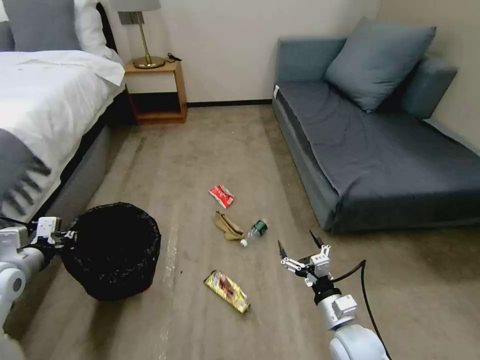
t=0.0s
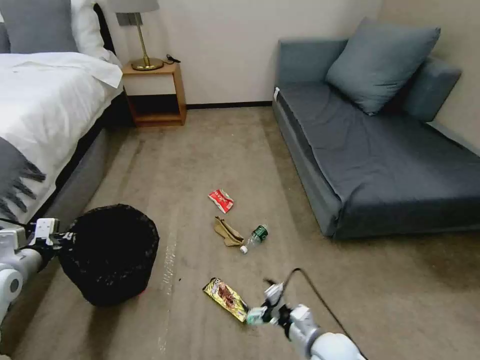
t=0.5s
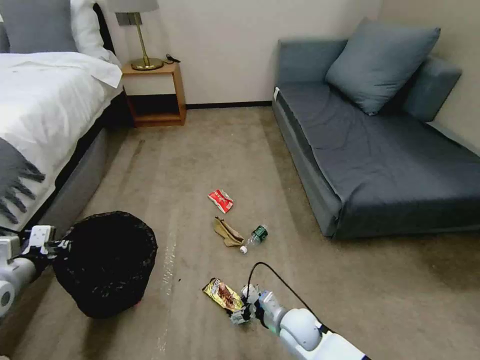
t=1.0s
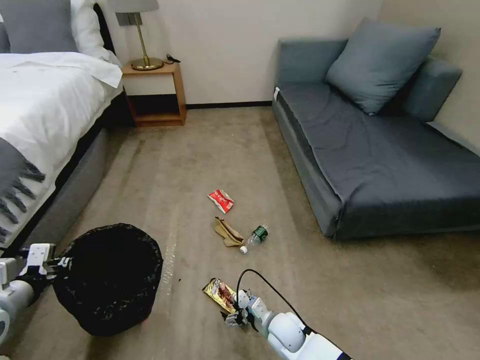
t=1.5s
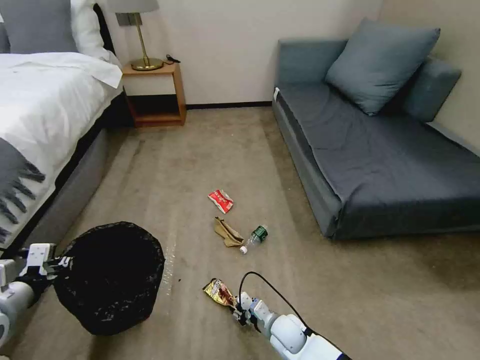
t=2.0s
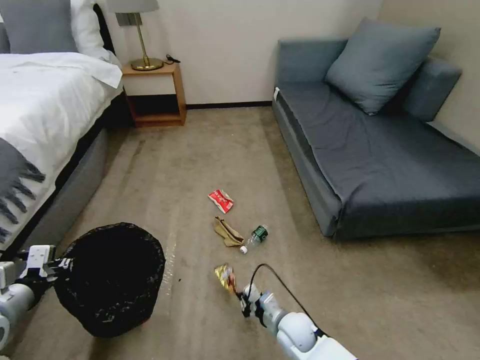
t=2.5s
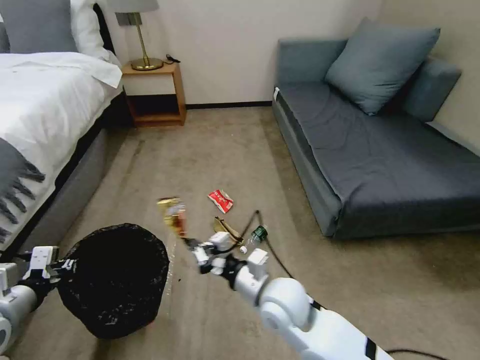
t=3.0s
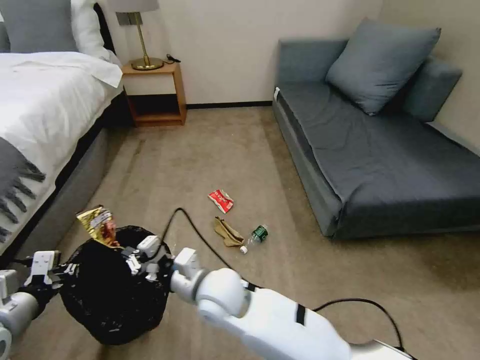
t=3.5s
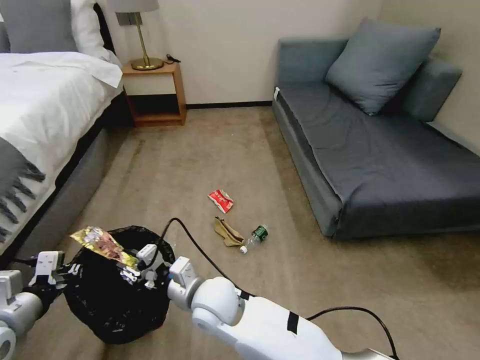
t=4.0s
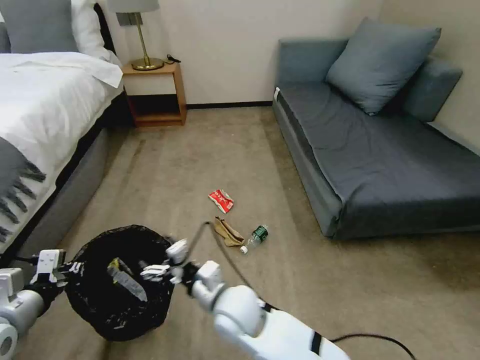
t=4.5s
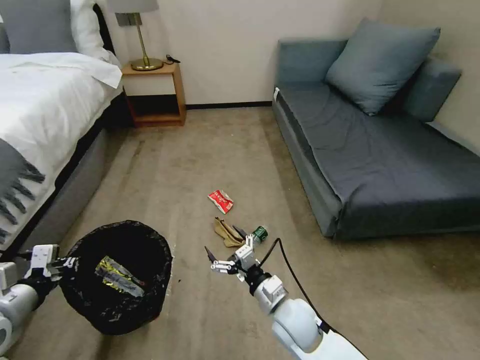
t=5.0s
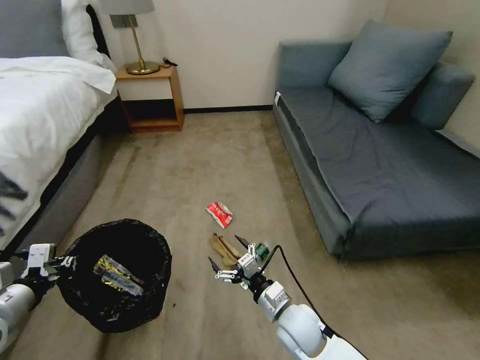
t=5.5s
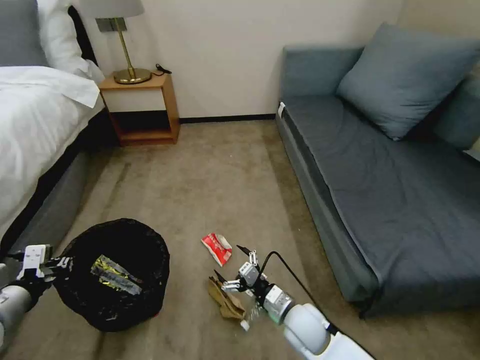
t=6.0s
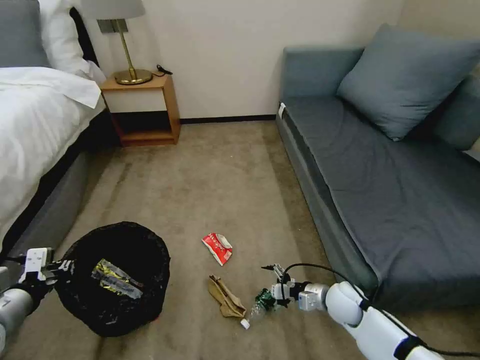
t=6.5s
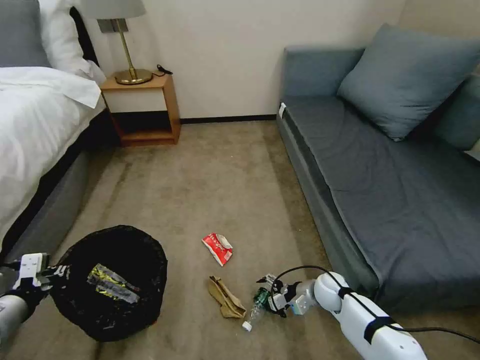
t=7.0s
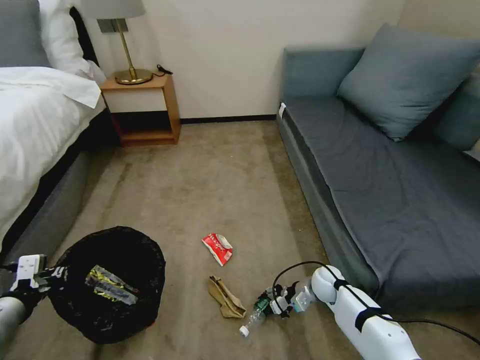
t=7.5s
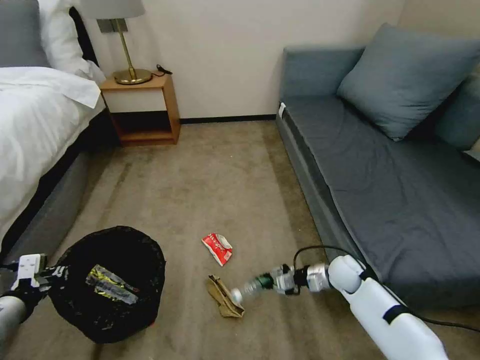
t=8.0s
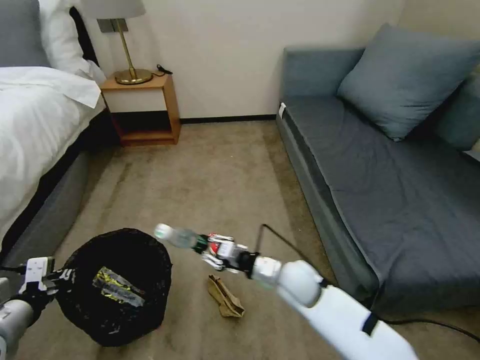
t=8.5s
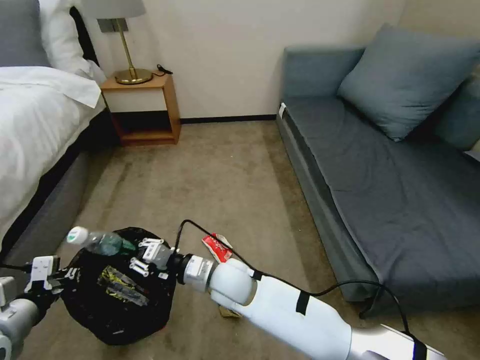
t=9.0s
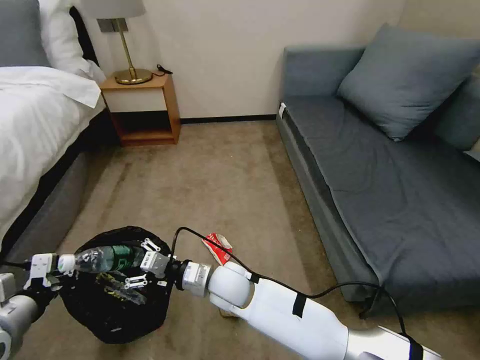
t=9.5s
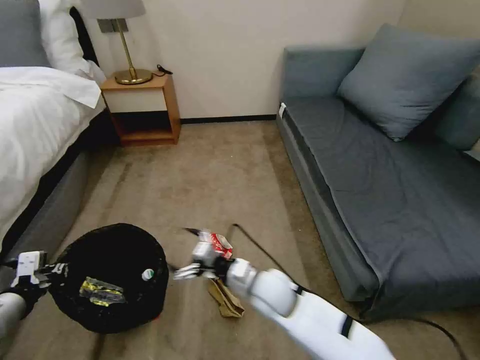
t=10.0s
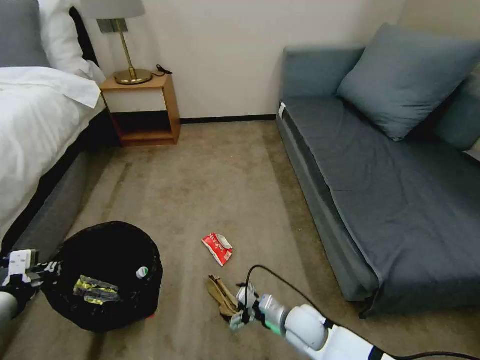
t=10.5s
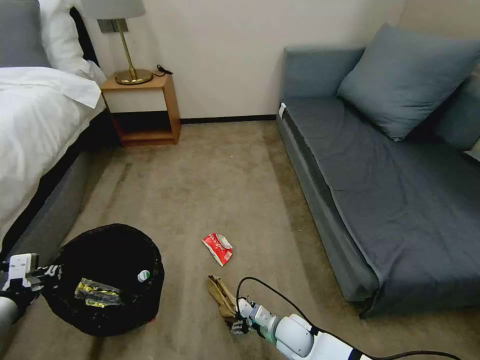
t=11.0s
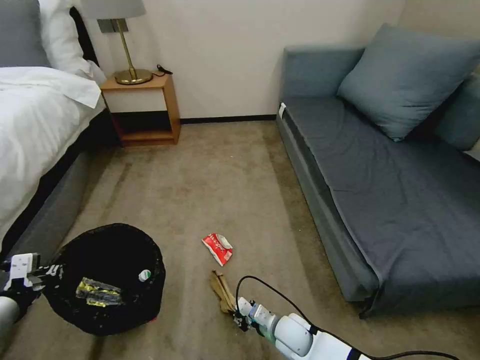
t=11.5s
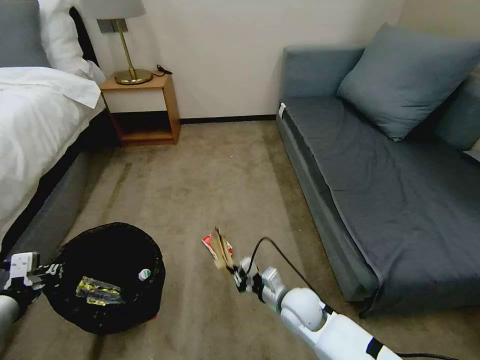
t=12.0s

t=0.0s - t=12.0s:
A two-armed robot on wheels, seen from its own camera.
Task of the whole recording: Pick up the trash bin, then pick up the garbage on the floor and place it into the trash bin.
t=0.0s - t=2.0s: The left gripper is displaced backward by some 10 cm, while the right gripper moves downward and to the left, roughly 20 cm, and closes up.
t=2.0s - t=4.0s: The right gripper moves upward and to the left, approximately 30 cm.
t=4.0s - t=6.0s: The right gripper heads to the right and downward, covering about 25 cm, and opens up.
t=6.0s - t=8.0s: The right gripper goes some 20 cm to the right and forward, and closes up.
t=8.0s - t=10.0s: The right gripper is displaced to the left by about 25 cm, and opens its fingers.
t=10.0s - t=12.0s: The right gripper goes approximately 10 cm to the right and downward, and closes up.

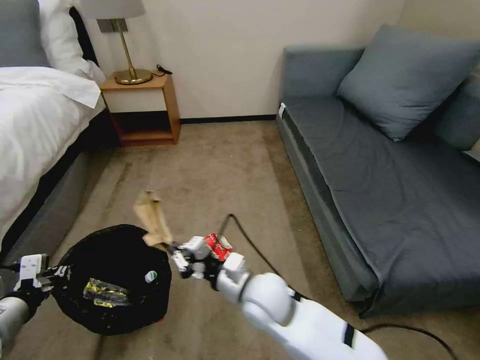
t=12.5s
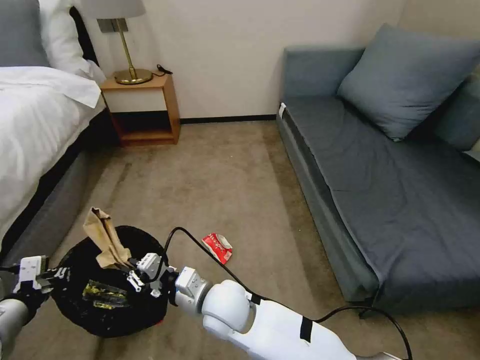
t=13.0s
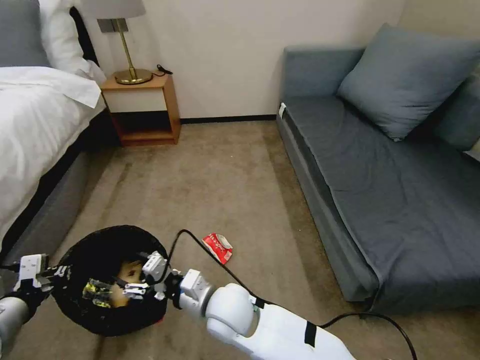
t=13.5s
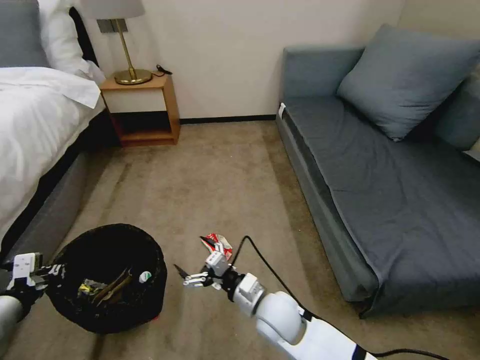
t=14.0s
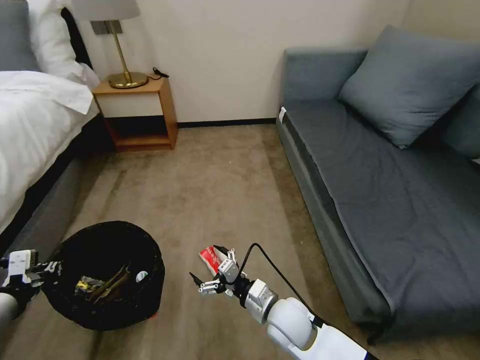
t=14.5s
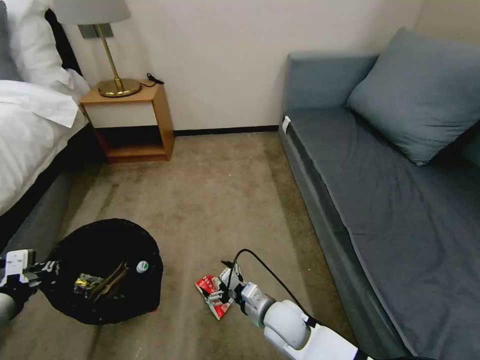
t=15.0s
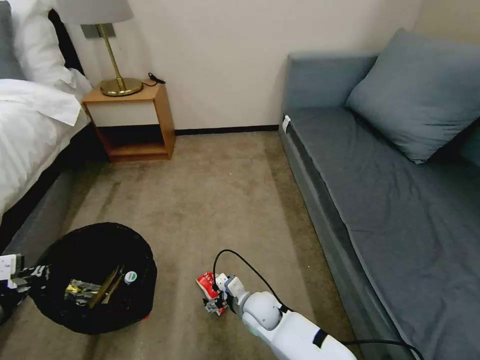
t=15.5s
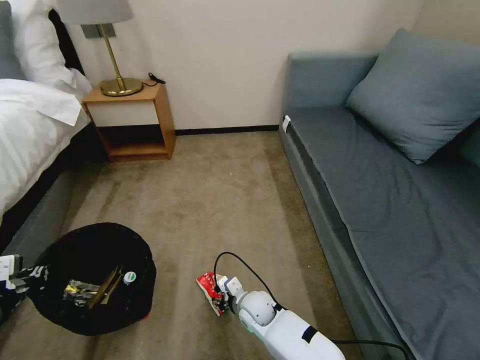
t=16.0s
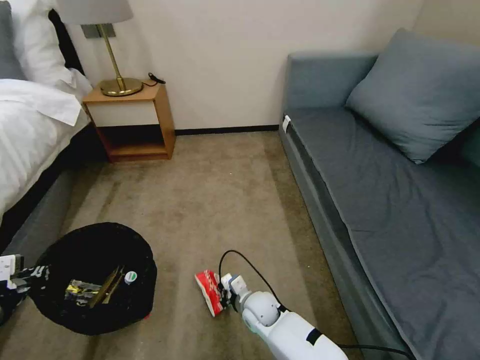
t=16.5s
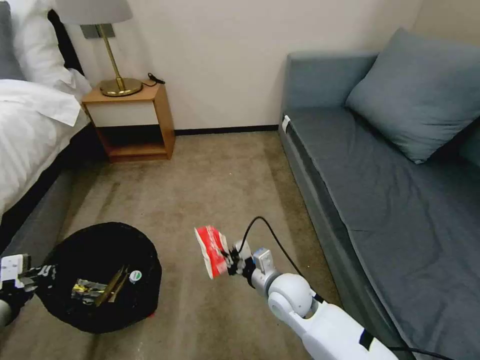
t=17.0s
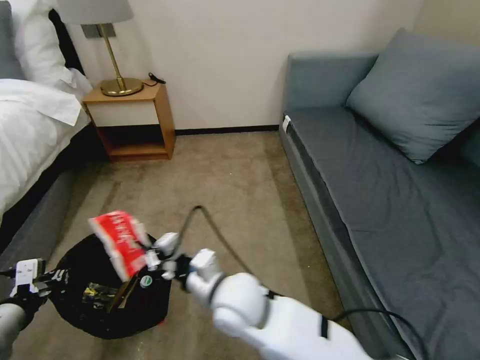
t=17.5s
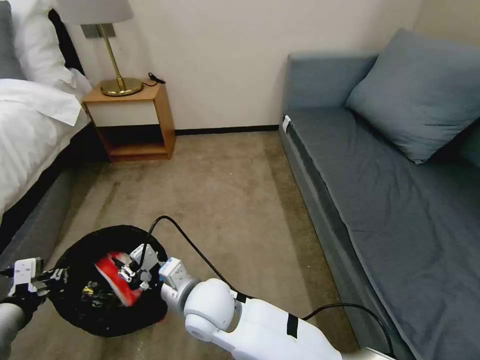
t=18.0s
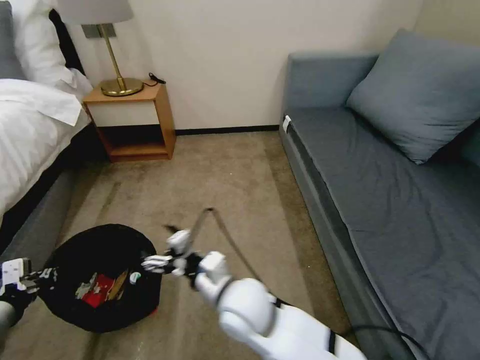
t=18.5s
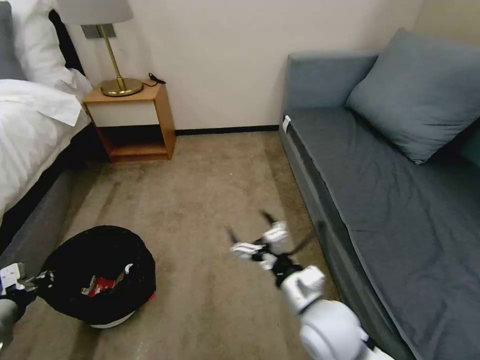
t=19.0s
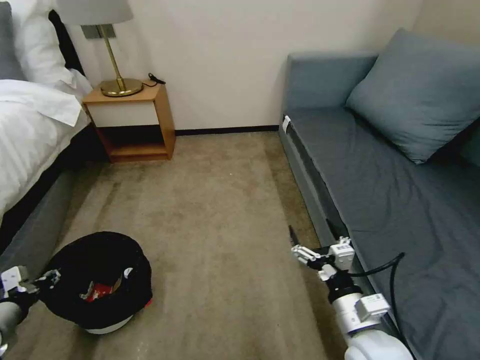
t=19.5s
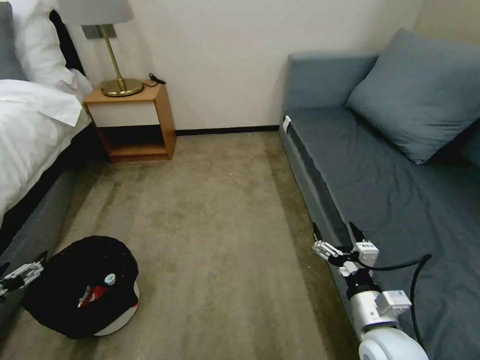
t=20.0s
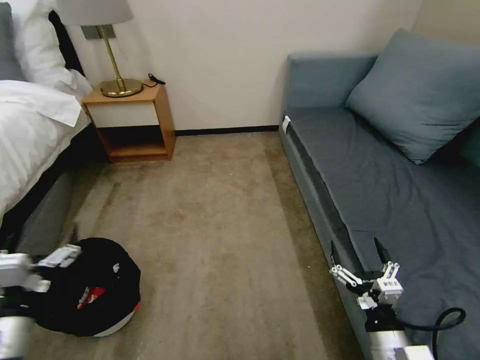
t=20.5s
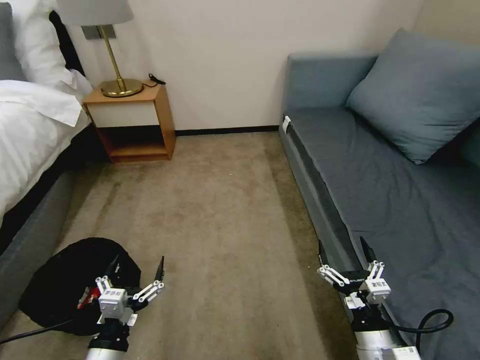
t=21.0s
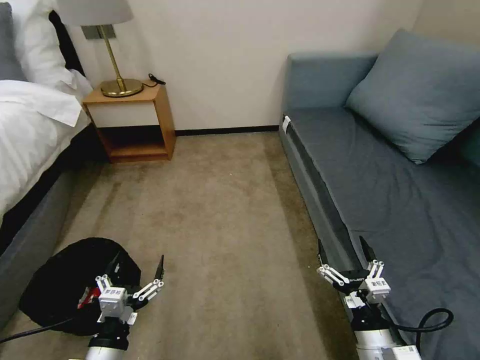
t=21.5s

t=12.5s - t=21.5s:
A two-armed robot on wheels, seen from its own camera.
Task of the whole recording: Pick up the trash bin, then pick up the garbage on the floor and place it into the trash bin.
t=12.5s - t=14.5s: The right gripper goes some 10 cm downward and to the right, and opens.
t=14.5s - t=17.0s: The right gripper reaches roughly 10 cm downward, then returns, and closes.
t=17.0s - t=19.5s: The right gripper shifts some 20 cm backward, to the right and upward, and opens. The left gripper moves downward and to the left, some 10 cm.
t=19.5s - t=21.5s: The right gripper shifts approximately 5 cm downward. The left gripper moves to the right, about 25 cm, and opens up.

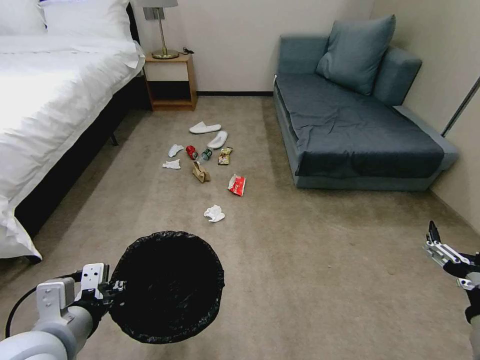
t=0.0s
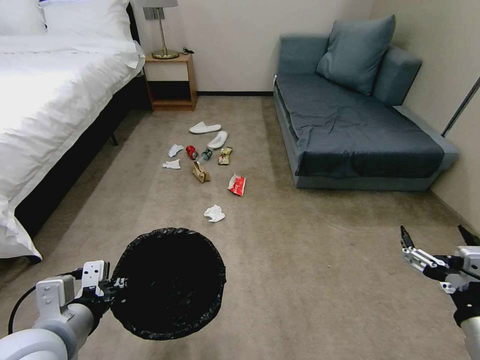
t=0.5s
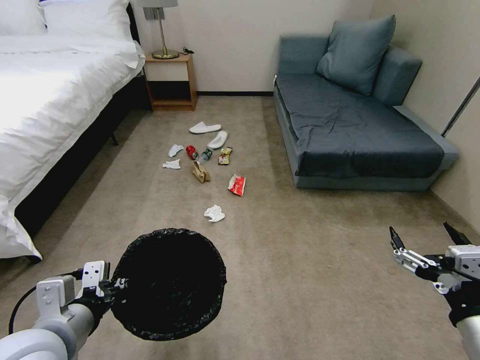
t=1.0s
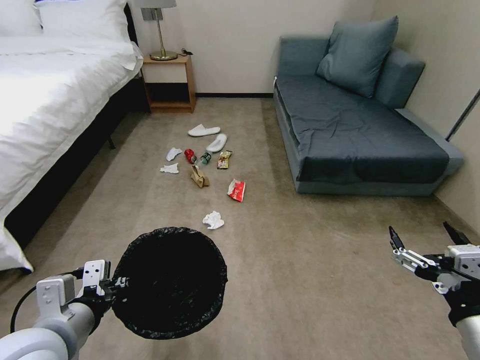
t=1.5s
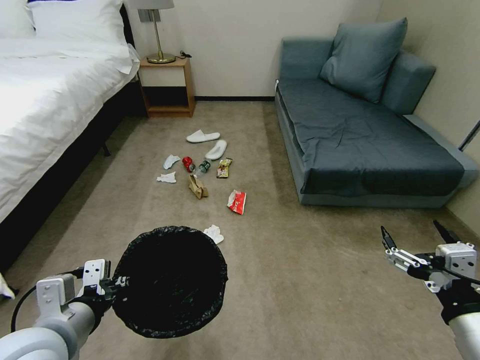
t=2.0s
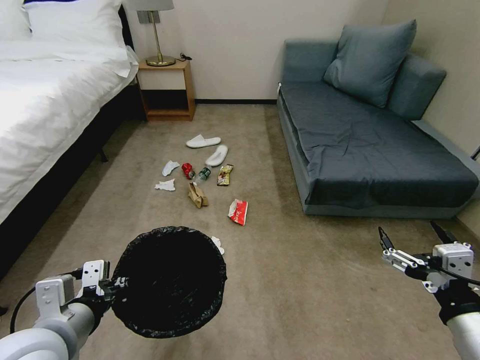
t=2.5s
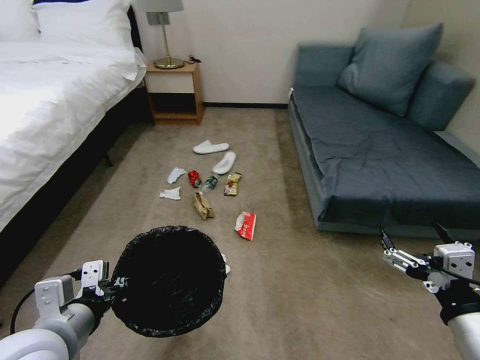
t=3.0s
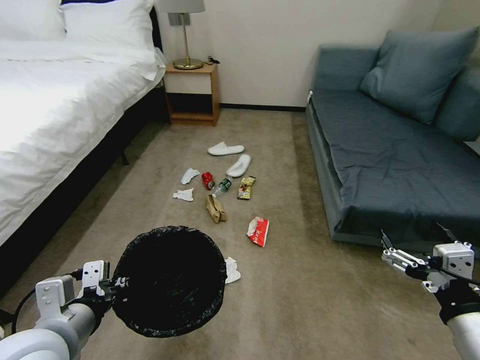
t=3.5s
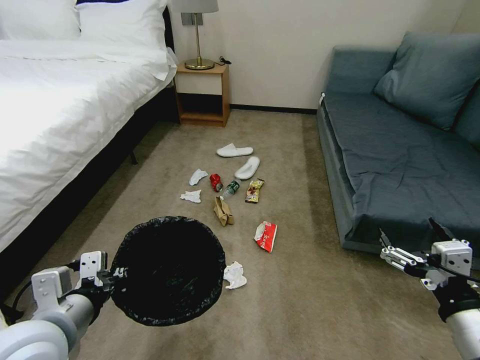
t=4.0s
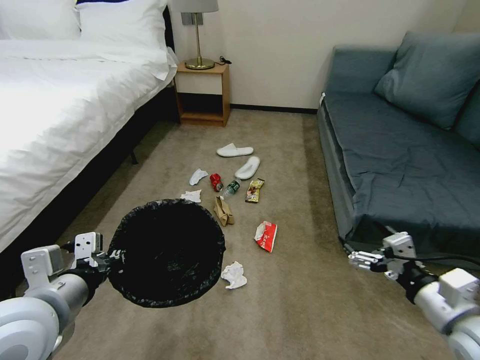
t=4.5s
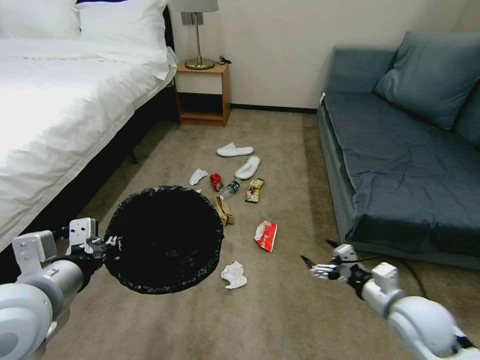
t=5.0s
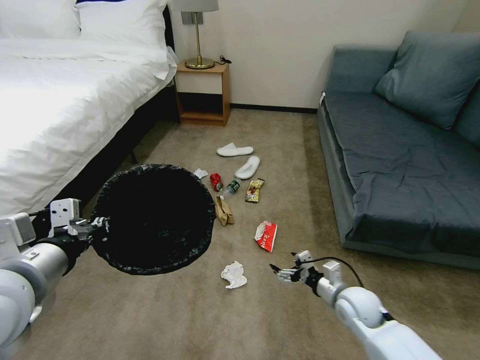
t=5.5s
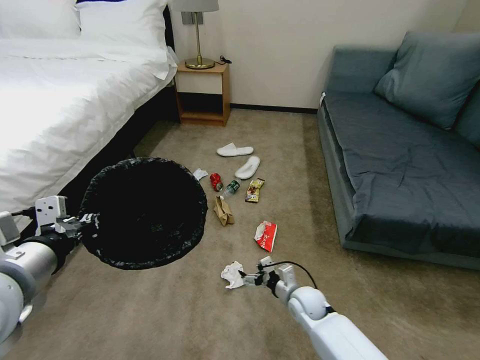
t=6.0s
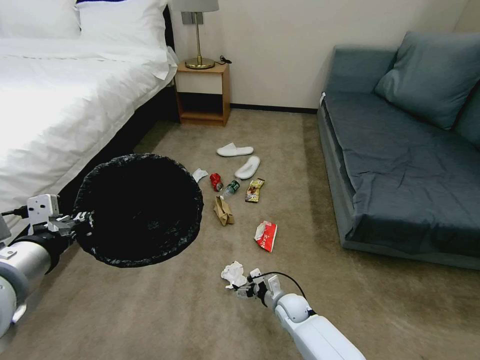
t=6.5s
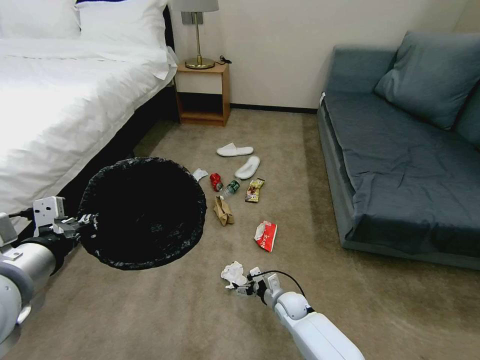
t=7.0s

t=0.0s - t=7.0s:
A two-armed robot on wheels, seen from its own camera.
Task of the whole recording: Pick up the trash bin, then pick up the garbage on the floor and place it into the trash bin.
t=3.5s - t=5.0s: The left gripper moves upward, roughly 5 cm. Meanwhile the right gripper heads forward and downward, covering about 20 cm.
t=5.0s - t=7.0s: The right gripper goes some 30 cm downward, to the left and forward.
